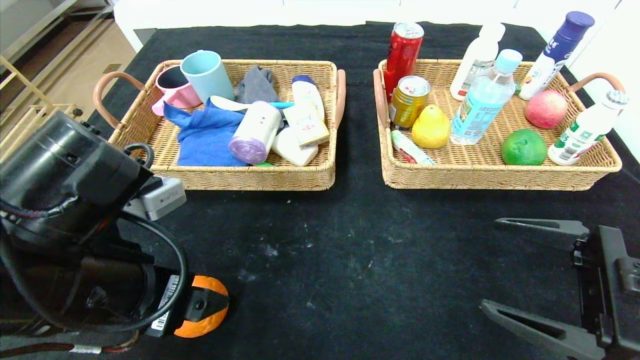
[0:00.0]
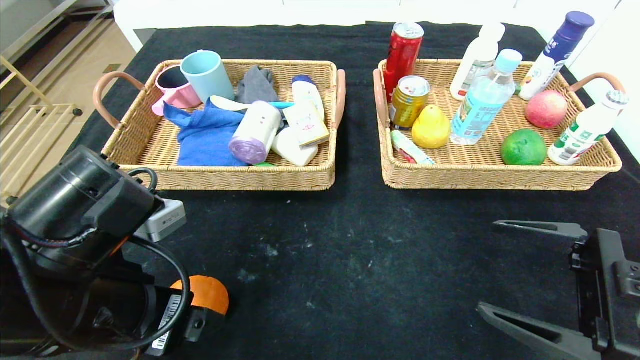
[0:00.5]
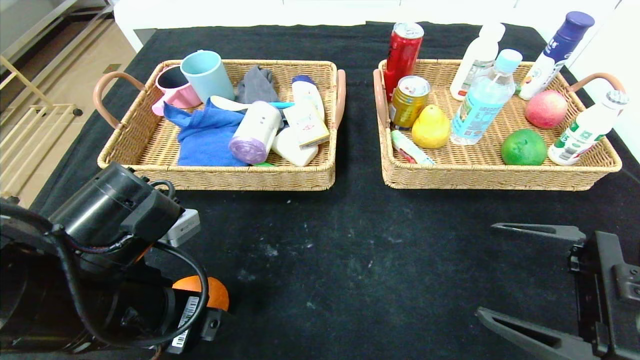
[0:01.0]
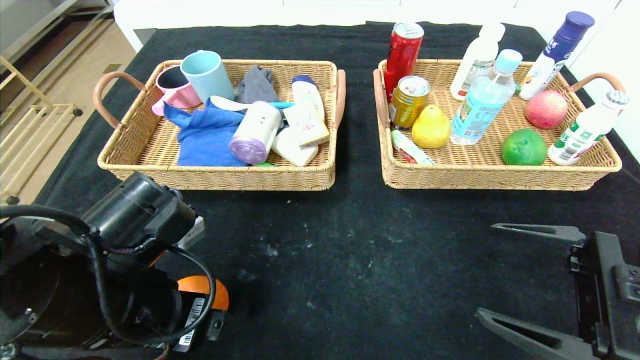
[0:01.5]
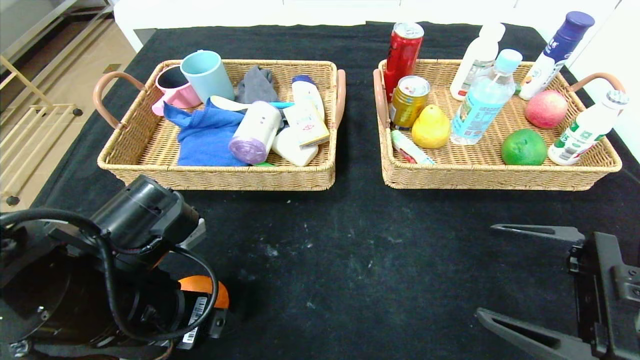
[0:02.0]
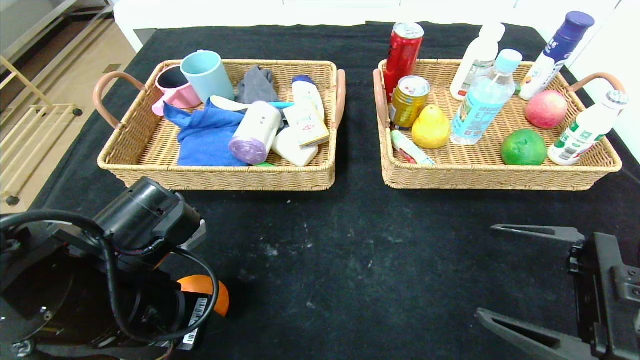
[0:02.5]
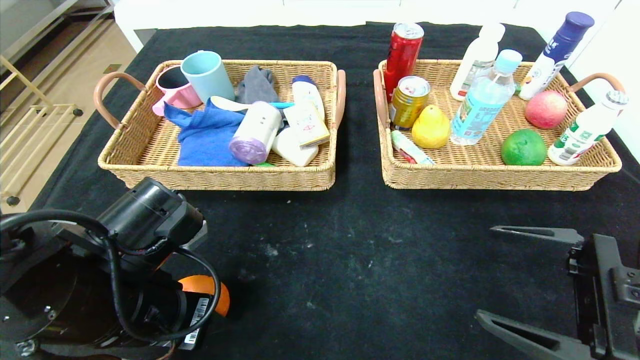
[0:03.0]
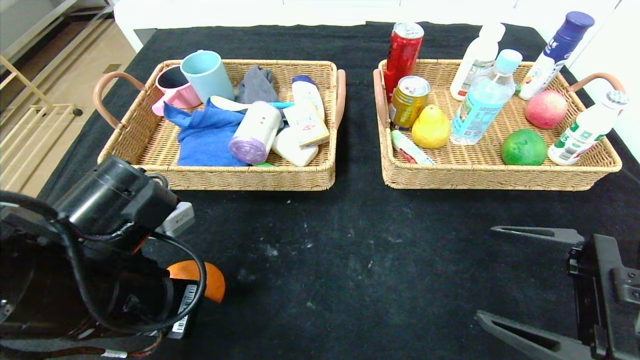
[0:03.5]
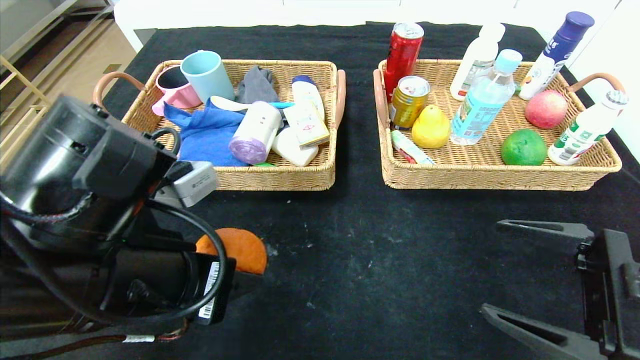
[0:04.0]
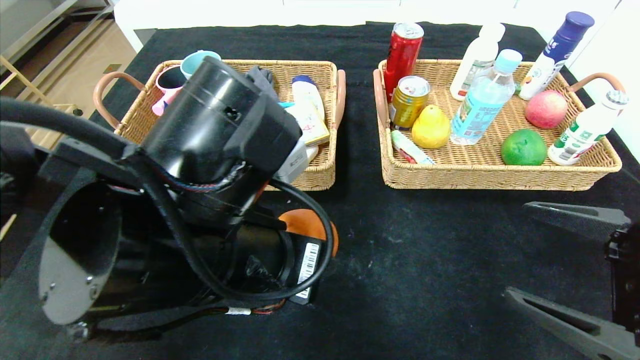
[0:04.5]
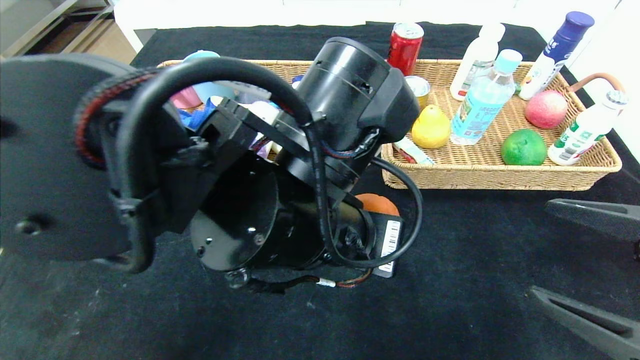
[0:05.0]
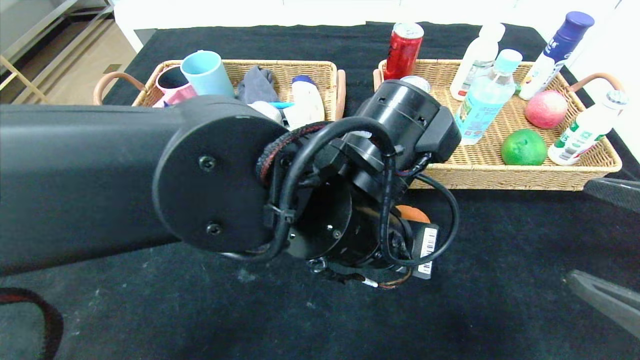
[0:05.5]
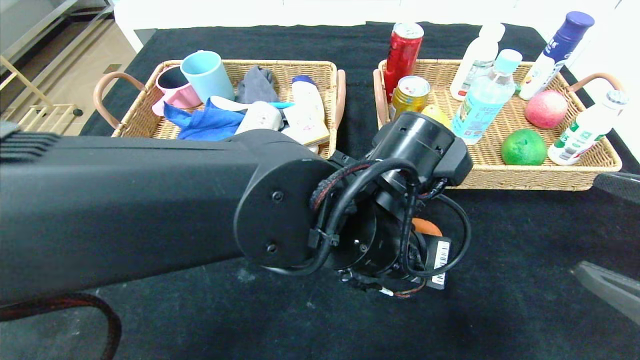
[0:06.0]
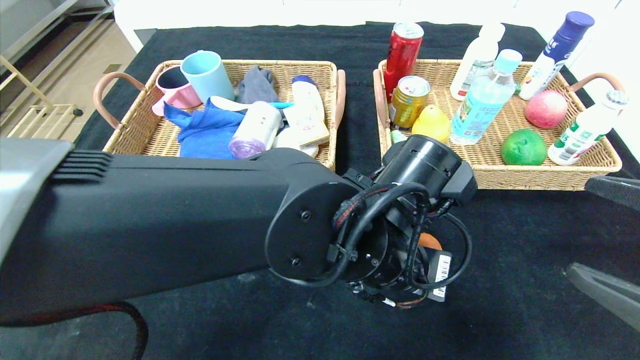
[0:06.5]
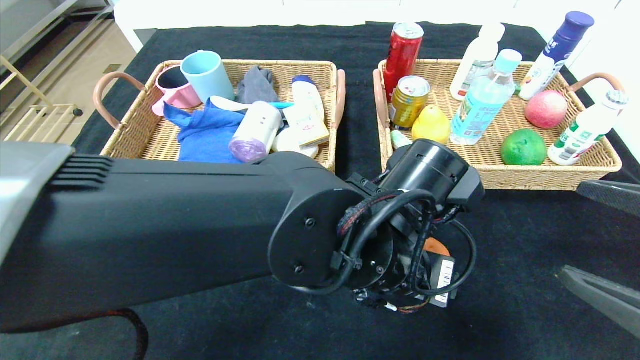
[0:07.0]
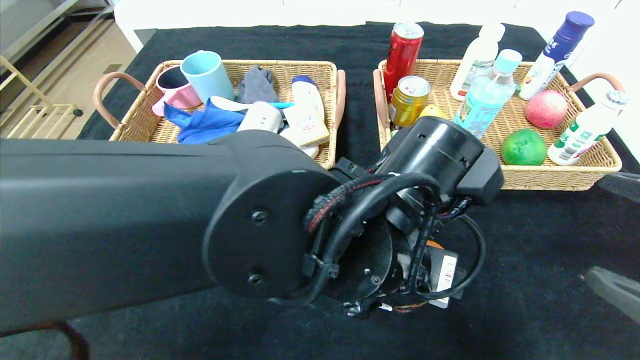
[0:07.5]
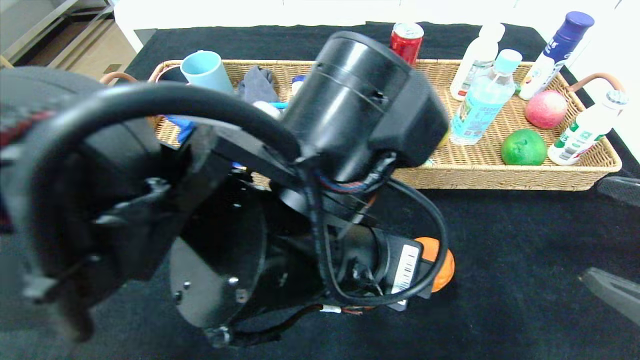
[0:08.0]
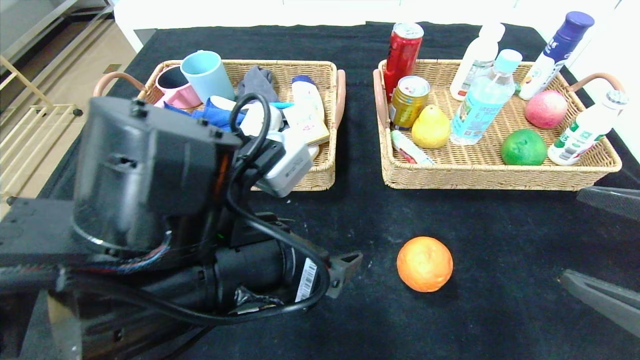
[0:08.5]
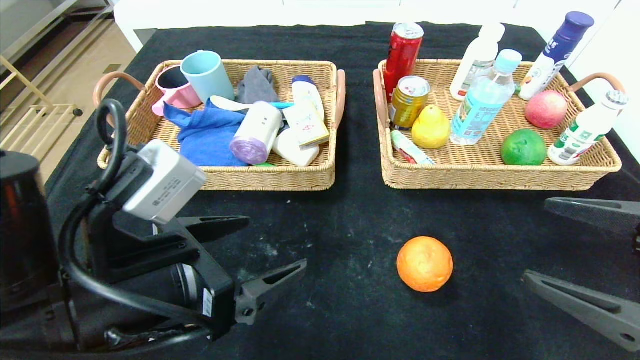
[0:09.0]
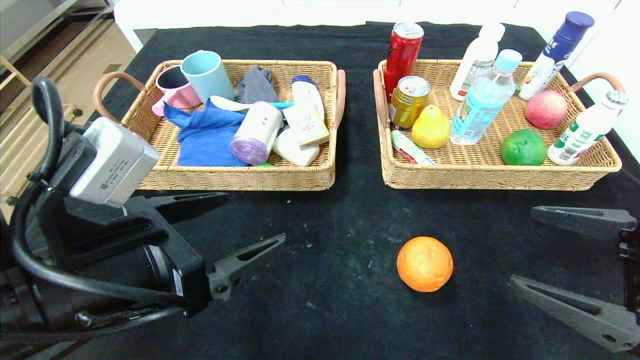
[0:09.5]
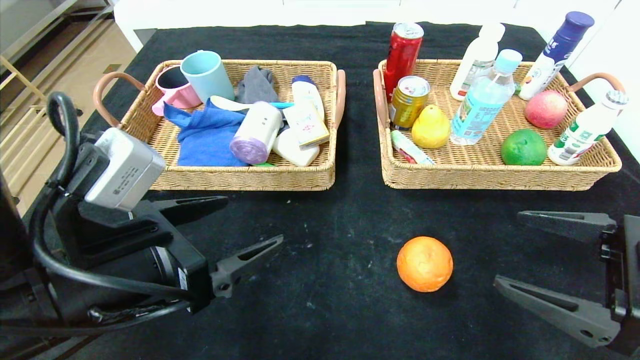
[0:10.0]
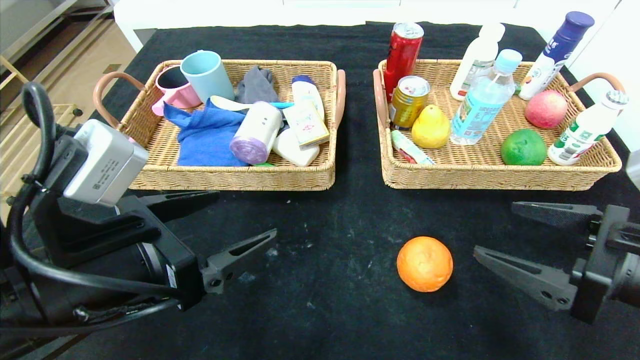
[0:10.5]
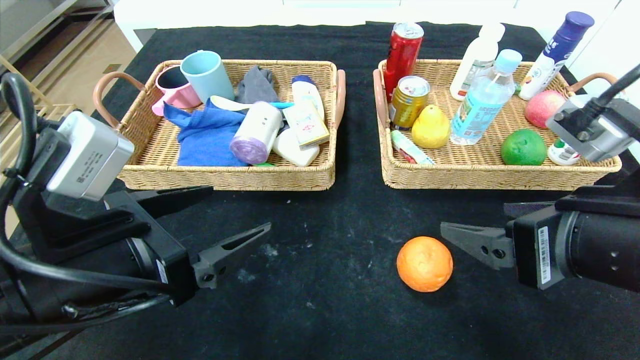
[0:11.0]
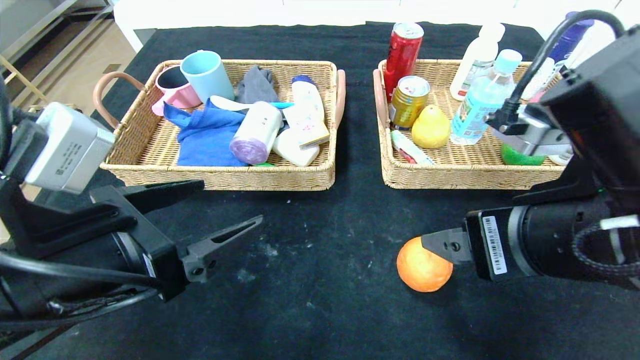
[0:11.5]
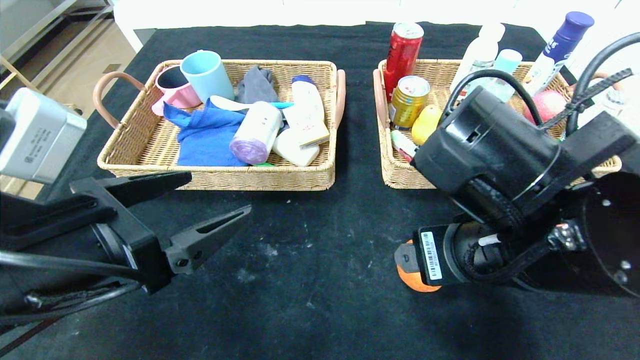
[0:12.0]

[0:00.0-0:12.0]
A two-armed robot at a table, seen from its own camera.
Step, 0:00.0 to 0:07.0: Place the orange in the center of the table.
0:00.0 to 0:02.0: The left gripper changes place by roughly 5 cm.
0:02.0 to 0:04.0: The left gripper goes approximately 5 cm upward, and closes.
0:04.0 to 0:06.0: The left gripper travels to the right by roughly 20 cm; the right gripper shifts by some 5 cm.
0:06.0 to 0:08.0: The left gripper travels to the left and backward by about 10 cm, and opens.
0:08.0 to 0:10.0: The right gripper moves some 5 cm; the left gripper is displaced to the left by some 15 cm.
0:10.0 to 0:12.0: The right gripper shifts roughly 15 cm to the left.

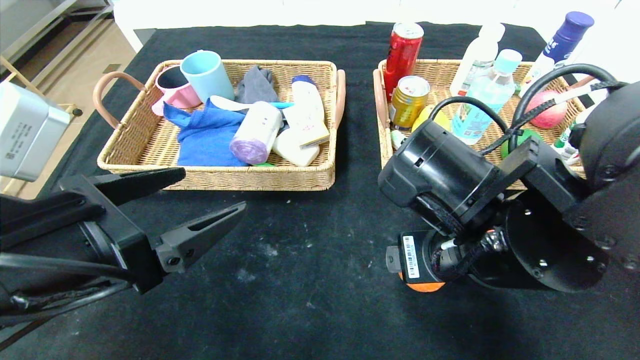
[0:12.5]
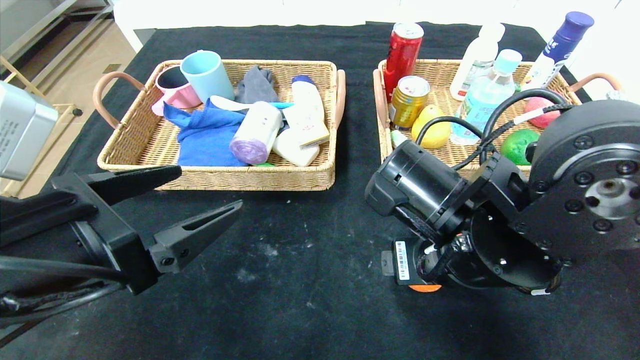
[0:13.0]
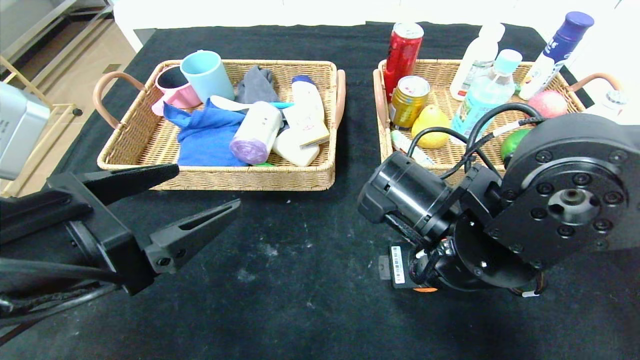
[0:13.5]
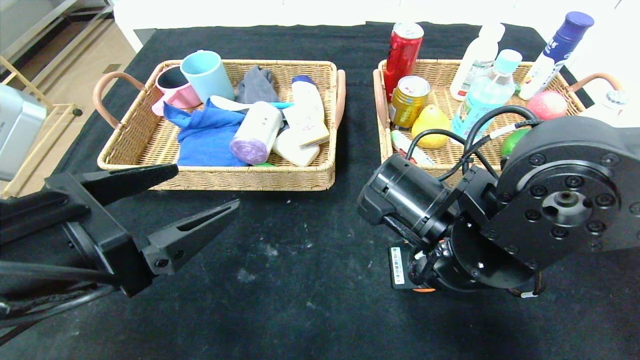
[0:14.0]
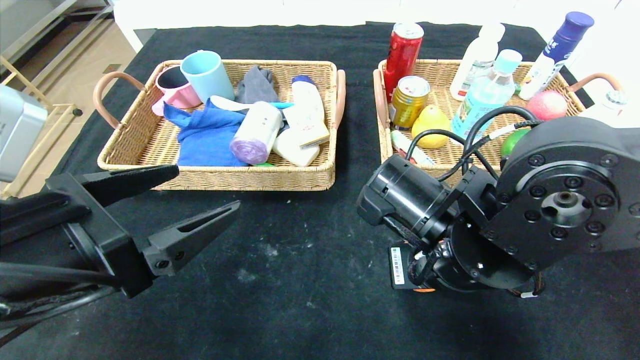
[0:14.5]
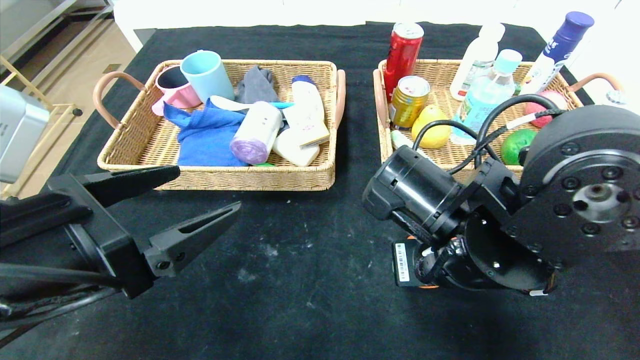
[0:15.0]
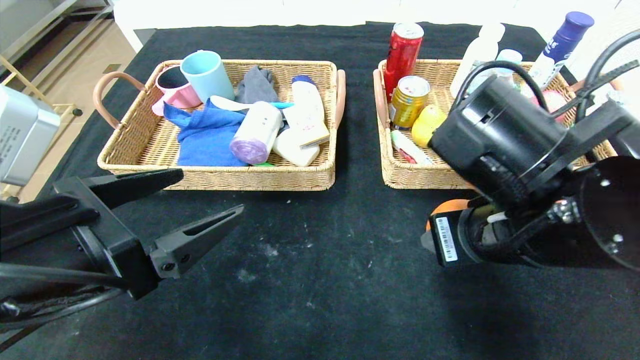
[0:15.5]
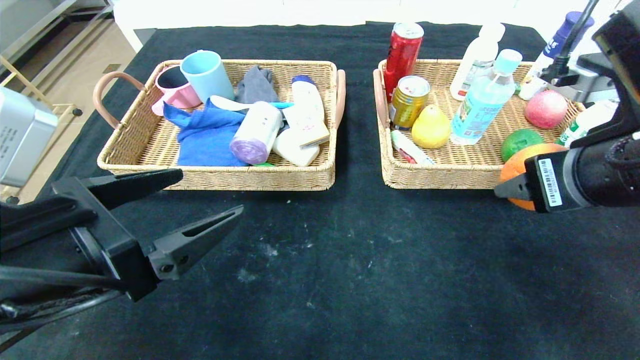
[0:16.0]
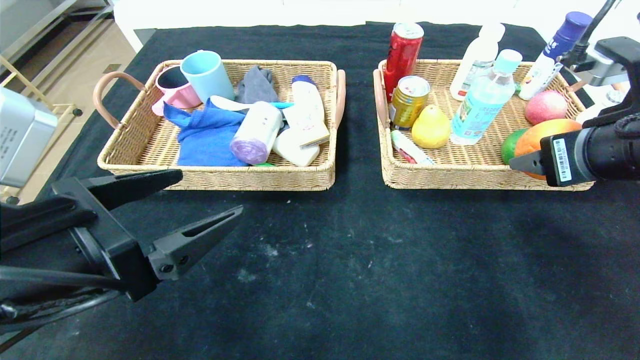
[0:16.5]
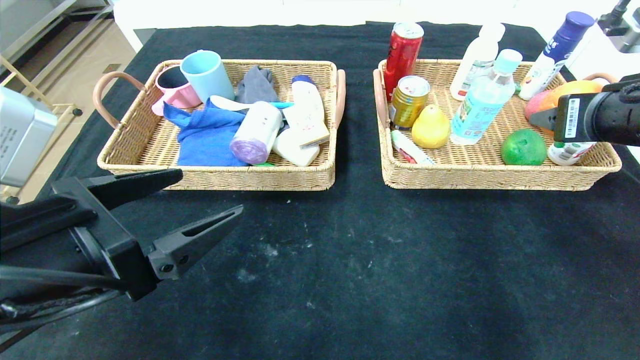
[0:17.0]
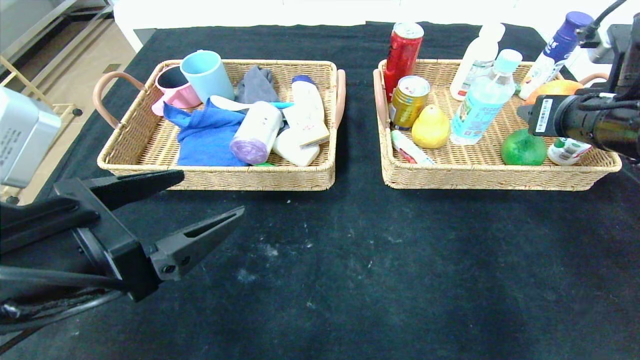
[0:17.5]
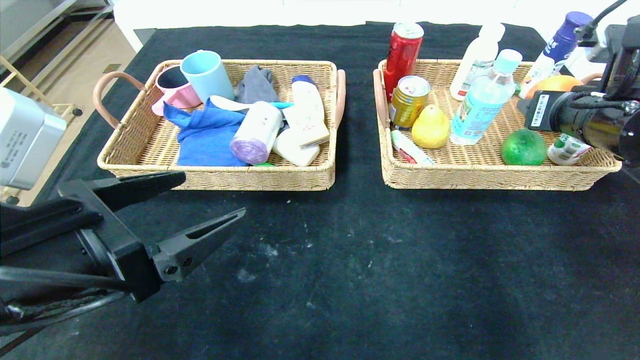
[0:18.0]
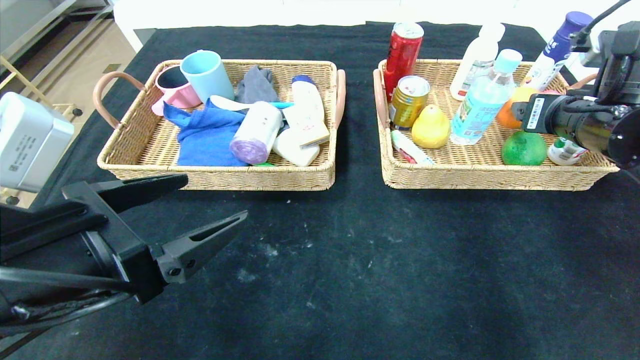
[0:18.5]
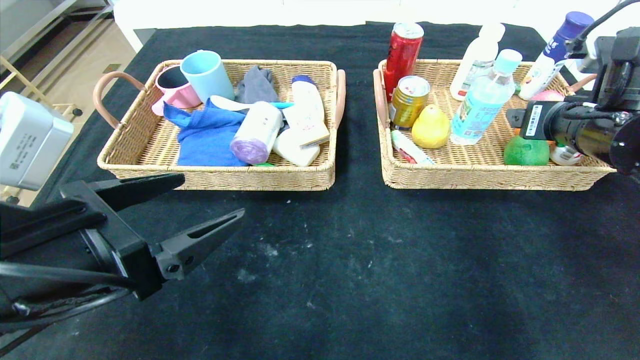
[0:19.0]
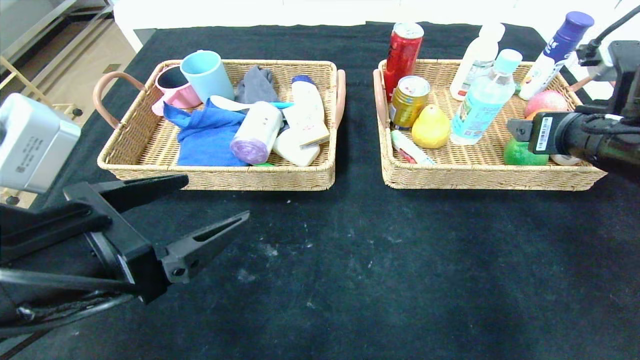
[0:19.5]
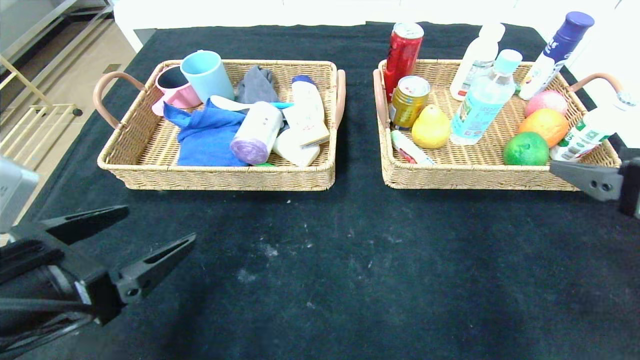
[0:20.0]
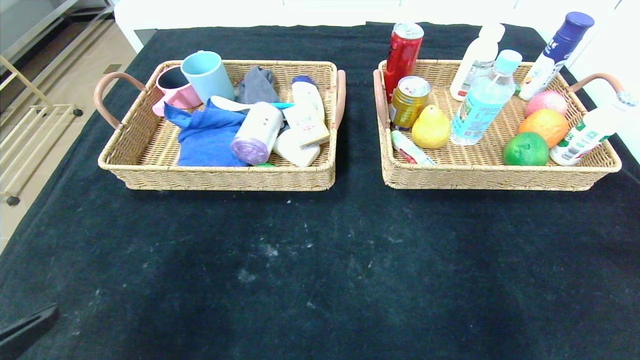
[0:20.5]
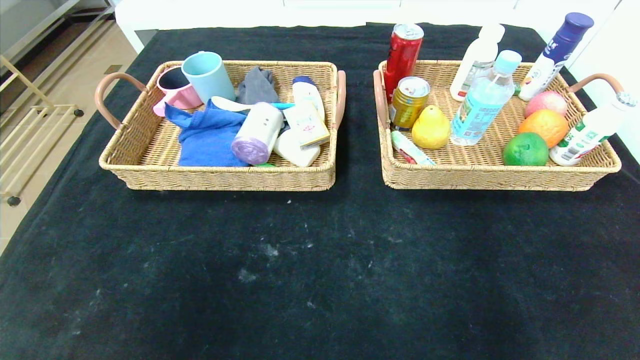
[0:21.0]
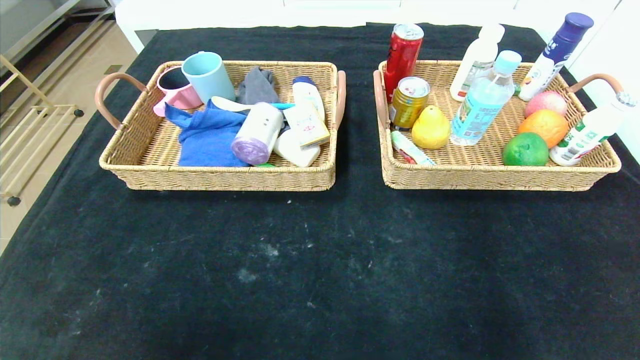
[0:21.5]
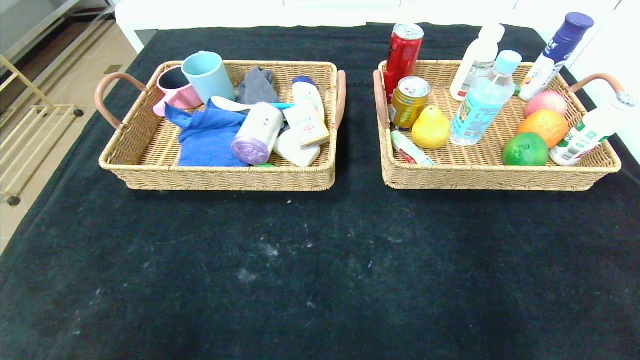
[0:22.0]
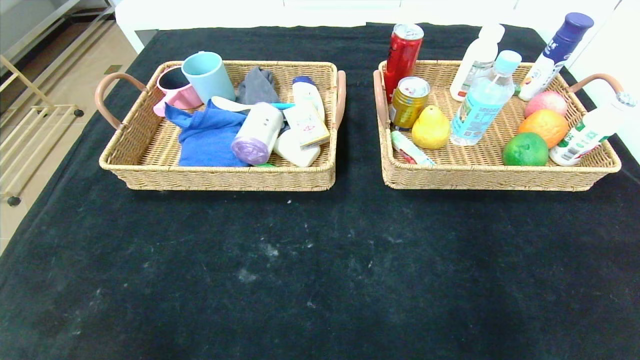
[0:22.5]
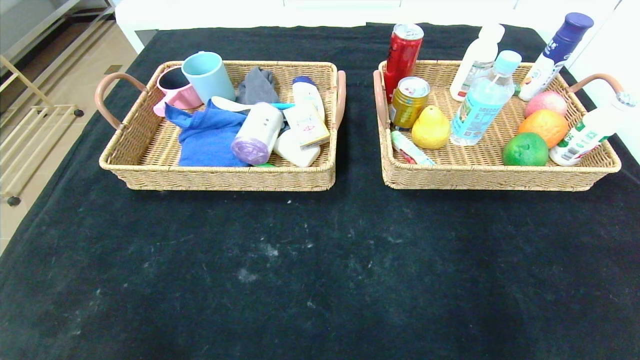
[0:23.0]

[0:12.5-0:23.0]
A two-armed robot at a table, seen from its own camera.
Step, 0:12.5 to 0:18.5: Grasp the orange and put it in the right basket.
0:12.5 to 0:14.5: The right gripper closes its fingers.
0:14.5 to 0:16.5: The right gripper moves to the right and upward, about 20 cm.
0:16.5 to 0:19.0: The right gripper heads forward, covering some 10 cm.
0:19.0 to 0:21.0: The left gripper is displaced backward by some 20 cm. Meanwhile the right gripper moves backward, some 40 cm.
